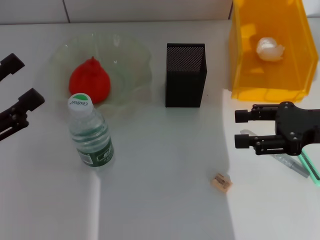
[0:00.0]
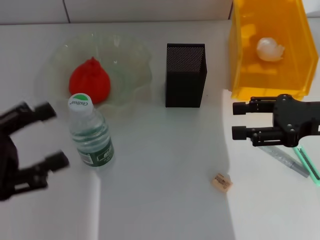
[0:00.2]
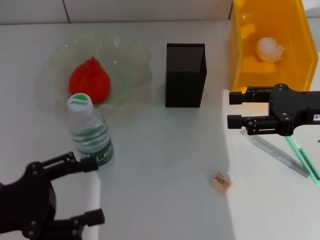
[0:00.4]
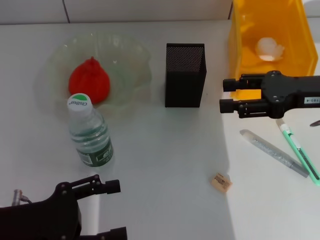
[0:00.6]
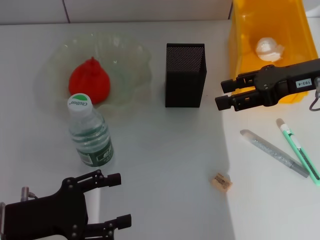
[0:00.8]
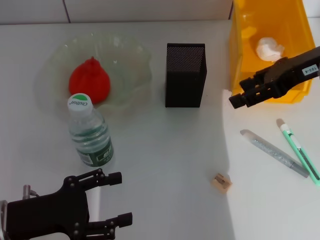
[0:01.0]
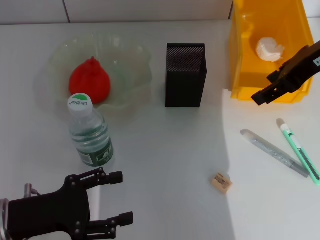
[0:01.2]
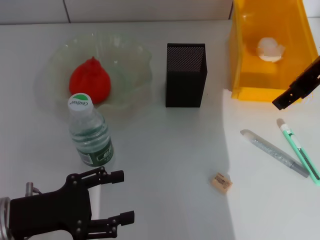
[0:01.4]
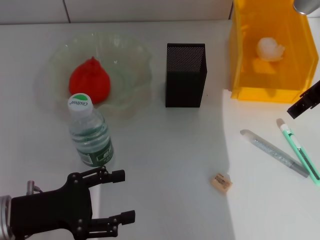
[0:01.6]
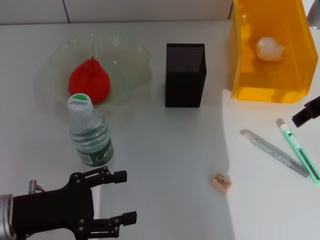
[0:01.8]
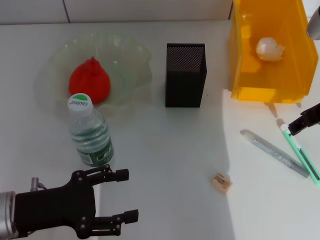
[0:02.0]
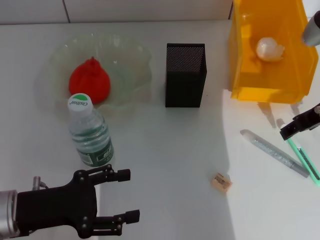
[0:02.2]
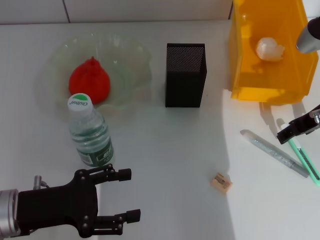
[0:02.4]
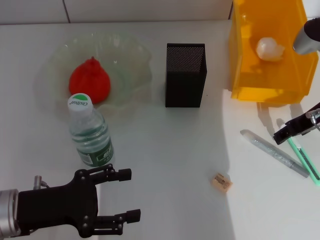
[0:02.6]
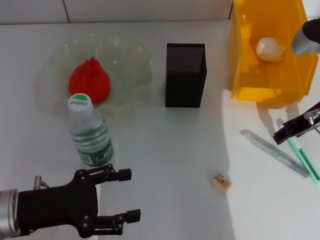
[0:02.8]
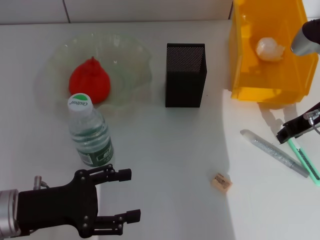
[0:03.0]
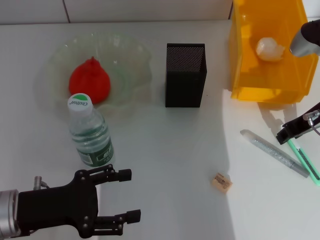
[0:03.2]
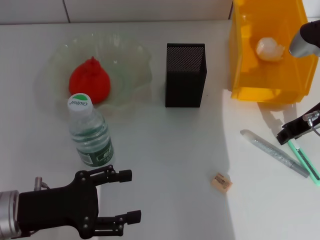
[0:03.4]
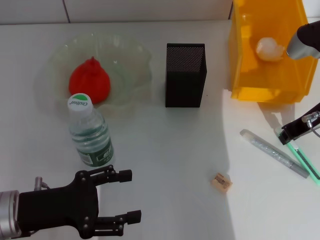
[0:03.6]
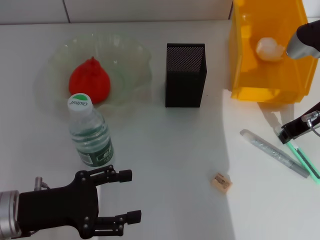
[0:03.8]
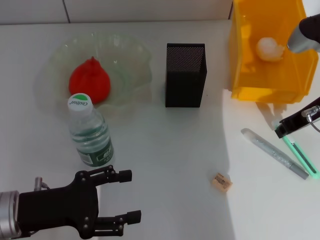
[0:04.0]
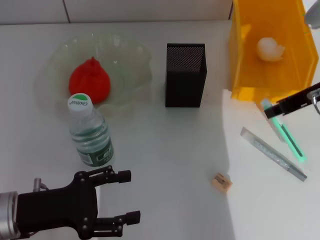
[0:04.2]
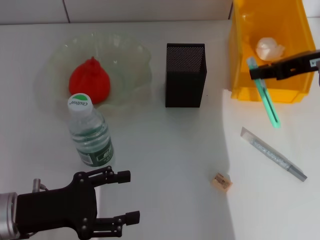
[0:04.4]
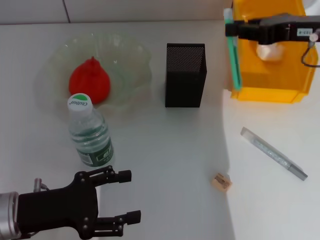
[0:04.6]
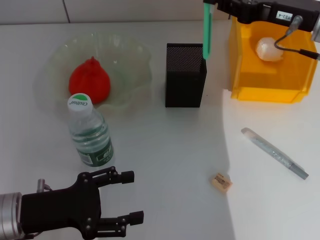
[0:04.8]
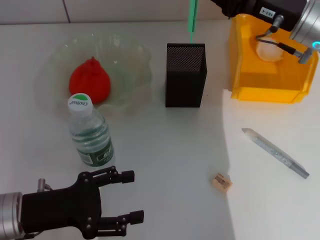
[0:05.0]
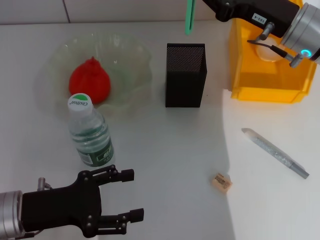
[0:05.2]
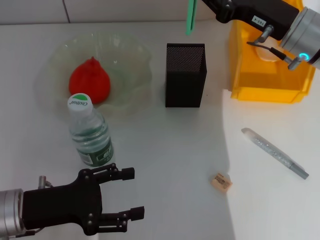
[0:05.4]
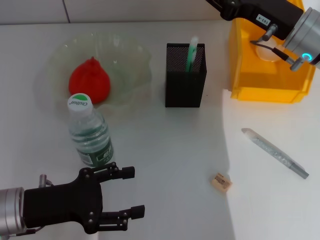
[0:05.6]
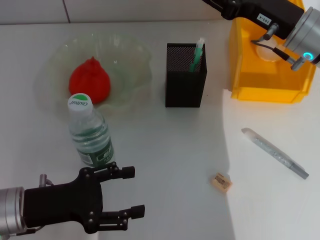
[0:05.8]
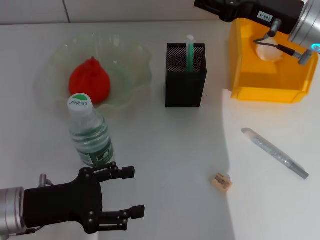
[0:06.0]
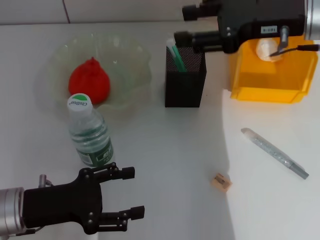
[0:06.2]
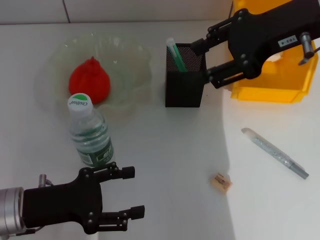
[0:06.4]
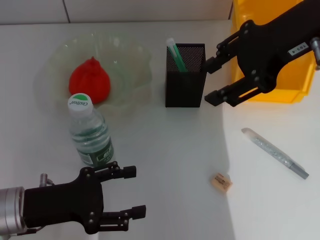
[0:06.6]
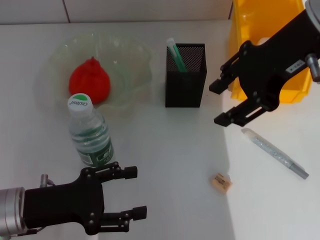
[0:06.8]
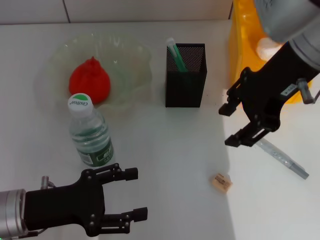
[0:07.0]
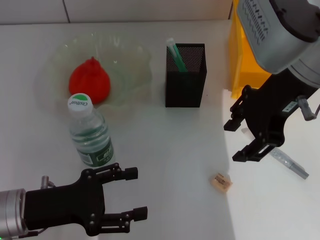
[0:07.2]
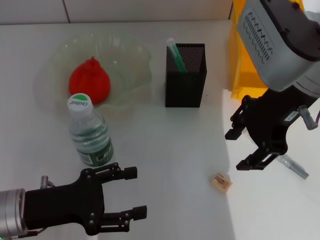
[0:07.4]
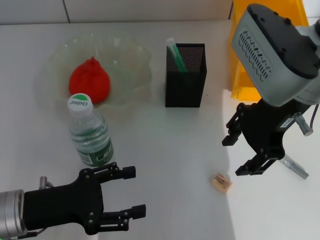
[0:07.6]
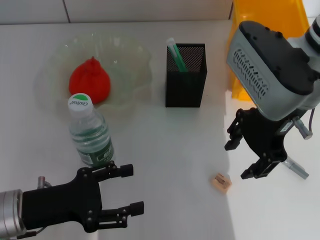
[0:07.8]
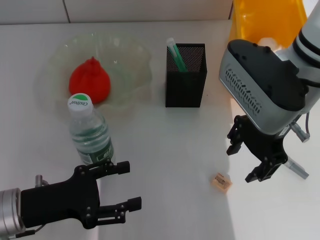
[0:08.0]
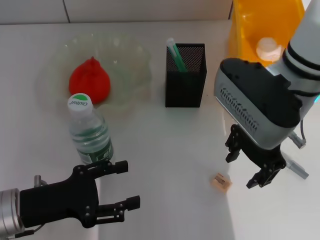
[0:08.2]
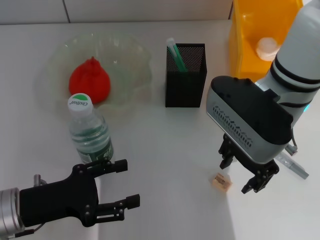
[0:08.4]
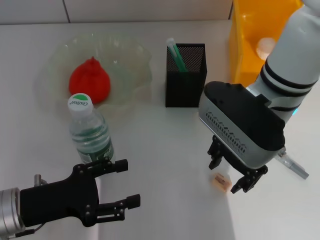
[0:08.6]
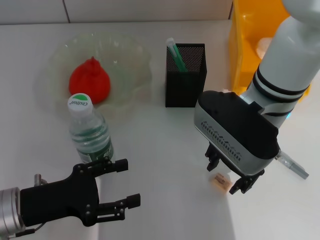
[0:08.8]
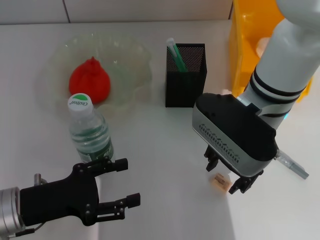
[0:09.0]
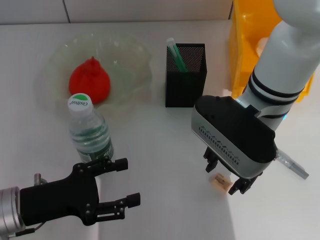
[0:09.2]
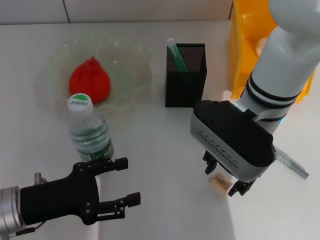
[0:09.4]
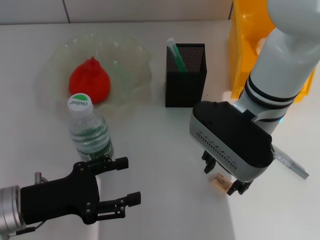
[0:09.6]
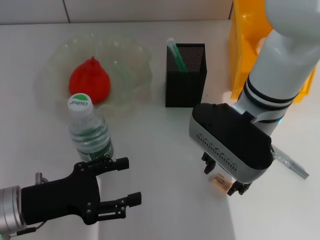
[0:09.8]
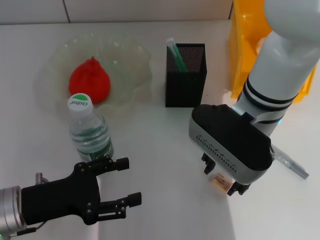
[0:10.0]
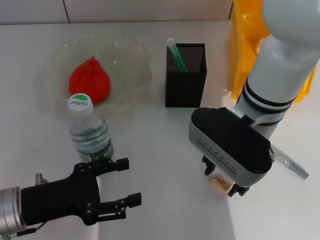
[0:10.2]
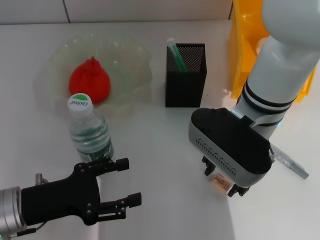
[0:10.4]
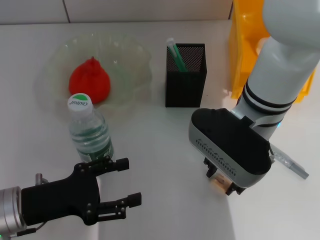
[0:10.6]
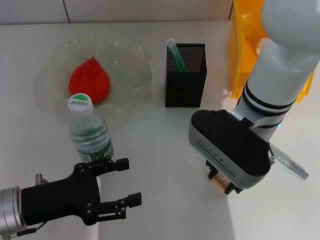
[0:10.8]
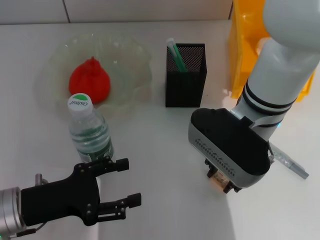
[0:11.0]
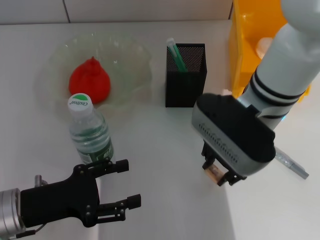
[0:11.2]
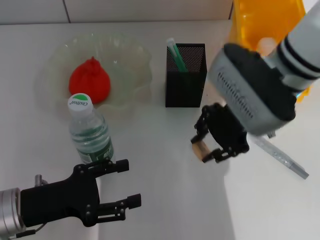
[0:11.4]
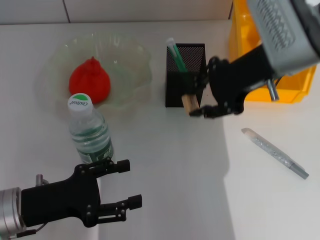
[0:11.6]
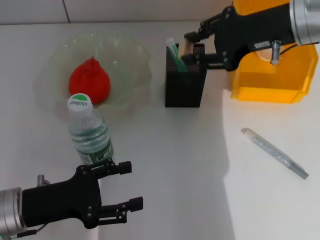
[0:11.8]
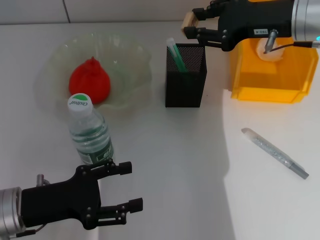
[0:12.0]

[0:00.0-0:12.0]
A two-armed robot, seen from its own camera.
Step, 0.0 to 3.6 s: Grab the blue utility knife with the right hand.
Step, 3.8 to 6.0 s: Place the blue utility knife into the pen holder with the right hand.
Step, 6.2 to 10.8 s: Grab the eraser with the right hand.
0.0 to 1.6 s: The left gripper shifts approximately 10 cm downward and to the right, while the right gripper goes about 15 cm upward, to the left and forward.
1.6 to 3.0 s: The right gripper heads downward, covering about 10 cm.
3.0 to 4.4 s: The right gripper shifts some 5 cm upward, and closes its fingers.
4.4 to 6.0 s: The right gripper heads to the left, covering approximately 5 cm, and opens its fingers.
6.0 to 7.6 s: The right gripper shifts roughly 10 cm to the left, upward and backward.
7.6 to 9.0 s: The right gripper moves downward, about 5 cm.
9.0 to 10.4 s: The grippers move only a little.
10.4 to 12.0 s: The right gripper shifts roughly 15 cm to the right, forward and upward.

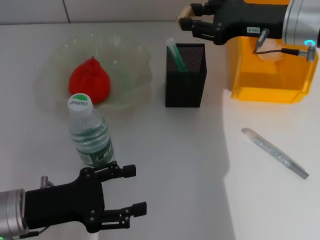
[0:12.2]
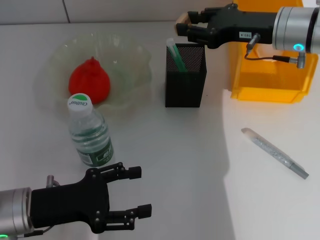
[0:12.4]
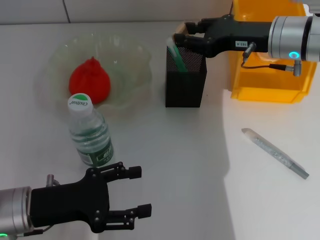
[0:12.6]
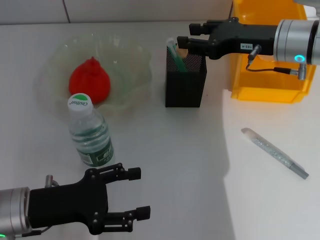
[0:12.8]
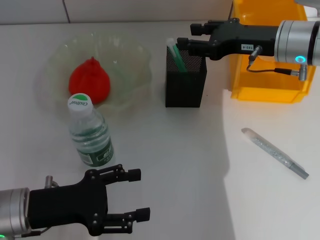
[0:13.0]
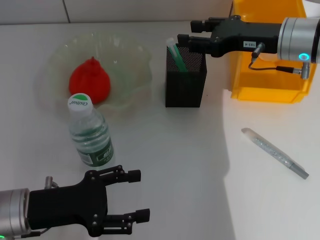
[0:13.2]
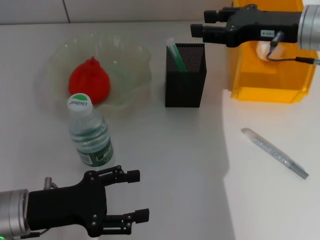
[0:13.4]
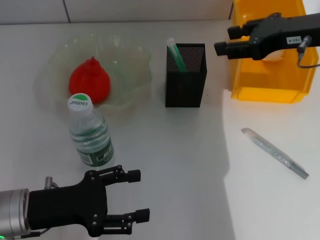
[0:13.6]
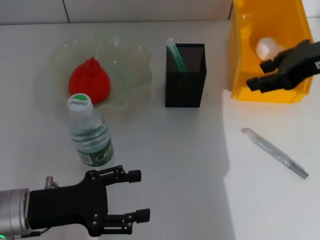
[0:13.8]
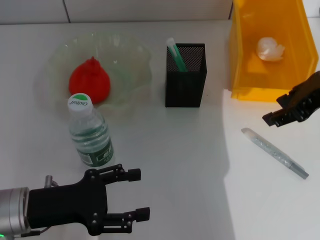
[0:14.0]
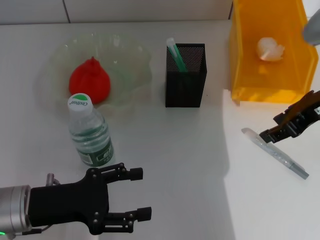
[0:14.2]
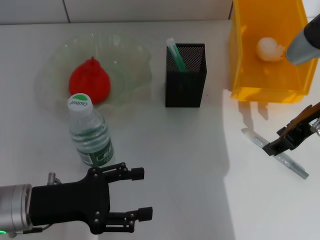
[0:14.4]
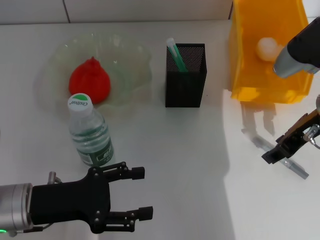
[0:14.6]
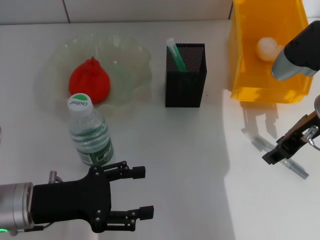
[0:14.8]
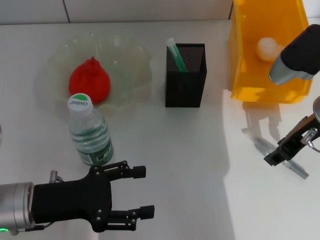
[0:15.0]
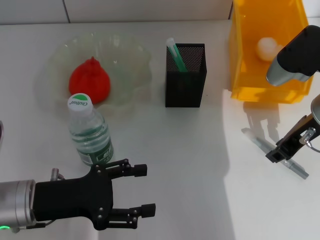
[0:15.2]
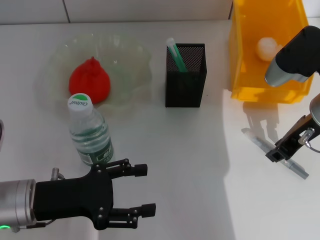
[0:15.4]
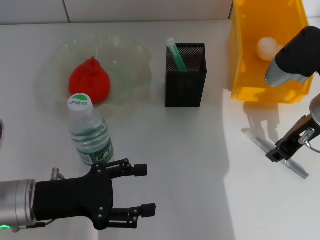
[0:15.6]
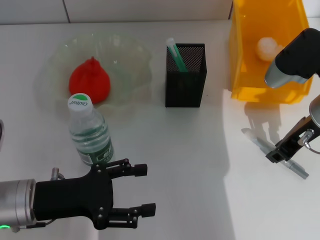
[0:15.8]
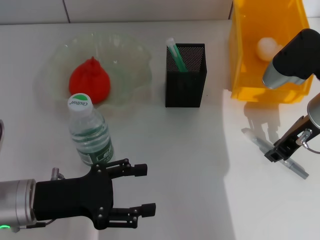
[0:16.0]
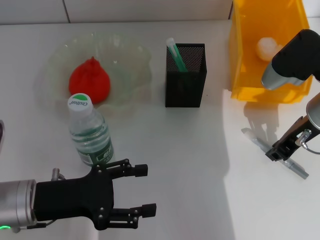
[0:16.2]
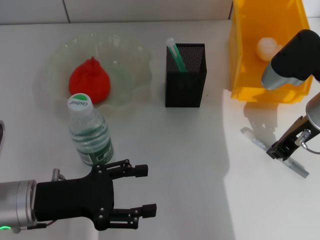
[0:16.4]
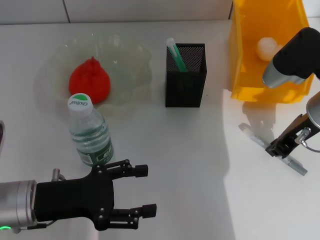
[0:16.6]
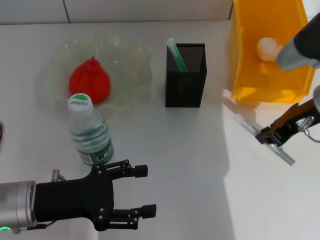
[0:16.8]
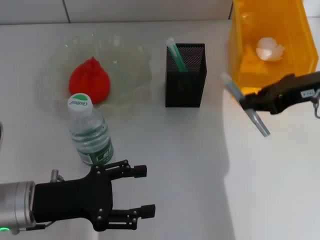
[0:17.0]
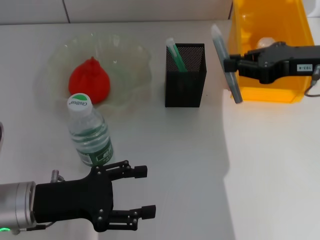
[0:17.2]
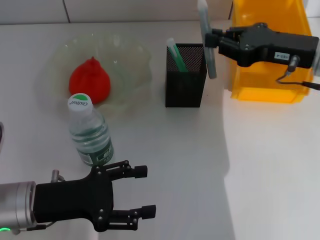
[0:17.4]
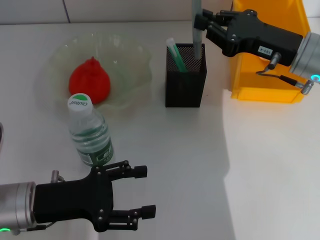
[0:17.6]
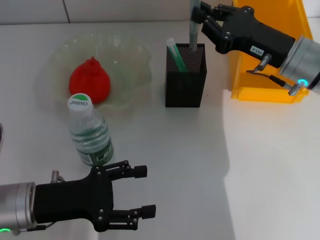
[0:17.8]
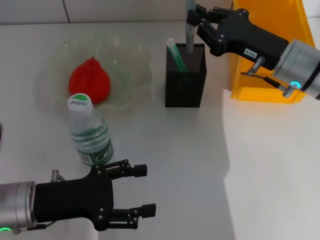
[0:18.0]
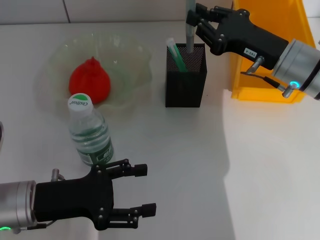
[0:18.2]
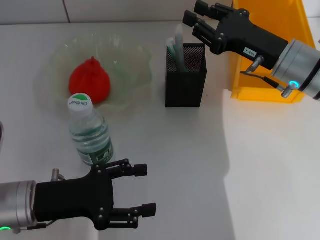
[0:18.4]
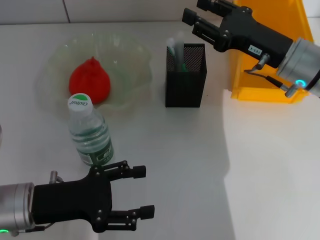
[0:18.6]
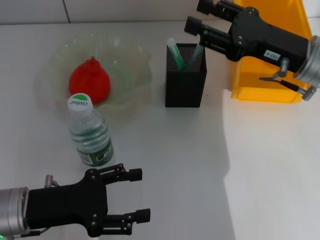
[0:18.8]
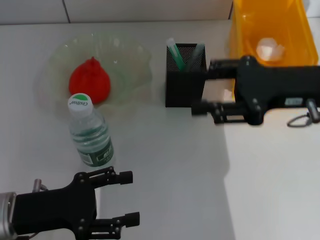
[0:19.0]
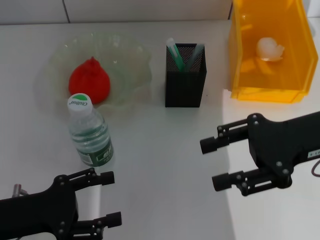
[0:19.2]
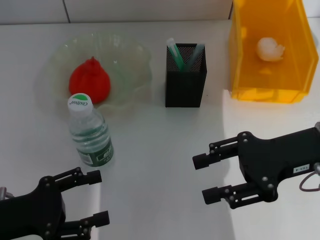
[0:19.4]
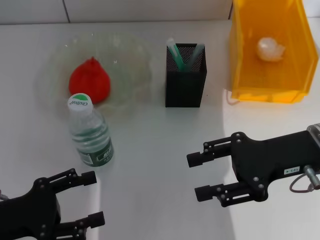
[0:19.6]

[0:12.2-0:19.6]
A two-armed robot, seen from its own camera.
Step, 13.0 to 16.4 s: Grab the gray glue with the right hand.
Step, 16.6 to 18.8 s: Place the gray glue into the pen holder with the right hand.
12.2 to 13.6 s: The right gripper moves about 5 cm.
13.6 to 15.2 s: The right gripper moves downward, approximately 5 cm.
15.2 to 16.6 s: The right gripper closes its fingers.
18.2 to 19.6 s: The right gripper heads backward, covering roughly 10 cm, and opens its fingers. The left gripper goes roughly 5 cm to the left.

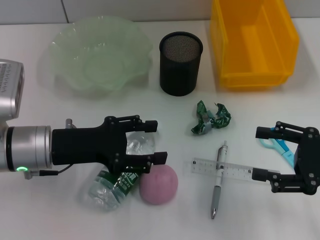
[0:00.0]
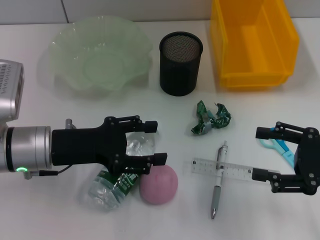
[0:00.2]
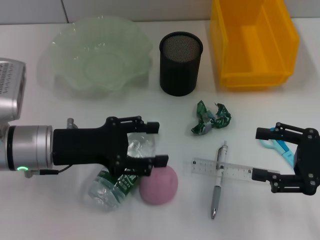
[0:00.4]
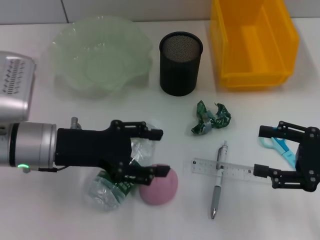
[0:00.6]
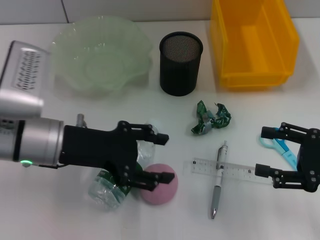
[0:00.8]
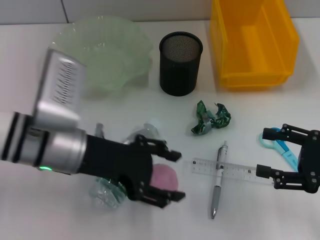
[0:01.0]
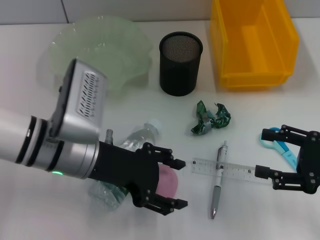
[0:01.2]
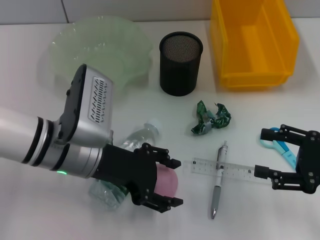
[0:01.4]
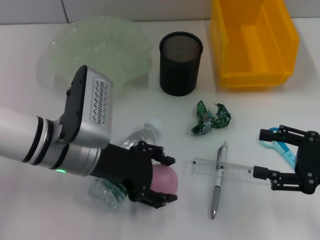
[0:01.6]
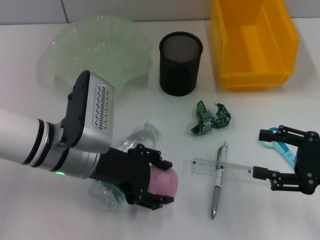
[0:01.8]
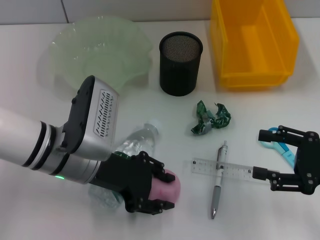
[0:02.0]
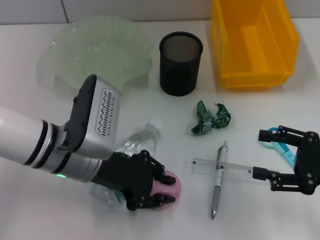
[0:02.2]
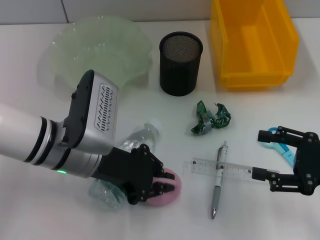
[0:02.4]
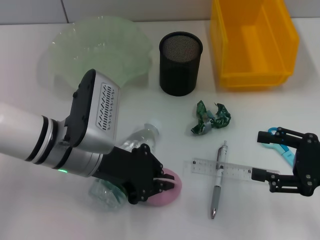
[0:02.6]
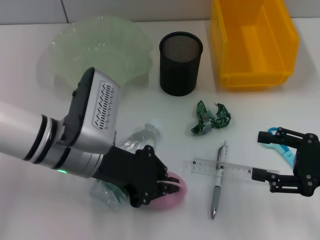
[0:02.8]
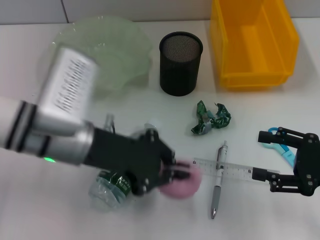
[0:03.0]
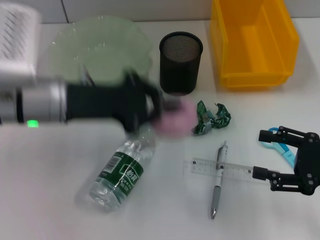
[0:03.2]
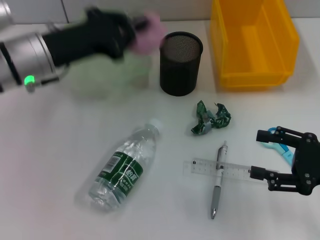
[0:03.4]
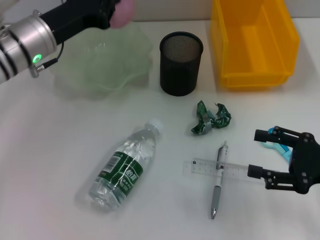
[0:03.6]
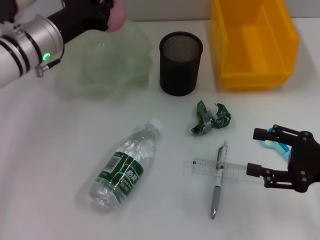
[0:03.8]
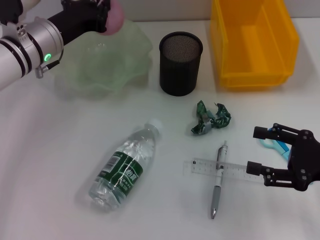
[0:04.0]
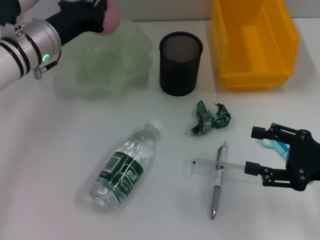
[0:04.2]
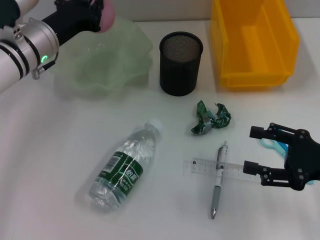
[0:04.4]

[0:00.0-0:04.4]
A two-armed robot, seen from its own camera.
Step, 0.0 to 2.6 s: Grab the peach with the left hand.
0.0 to 1.4 s: The left gripper moves to the right, some 5 cm.
1.4 to 3.0 s: The left gripper closes its fingers.
3.0 to 4.4 s: The left gripper goes approximately 15 cm forward and to the left.
